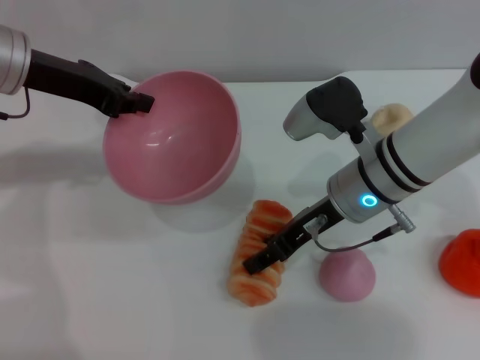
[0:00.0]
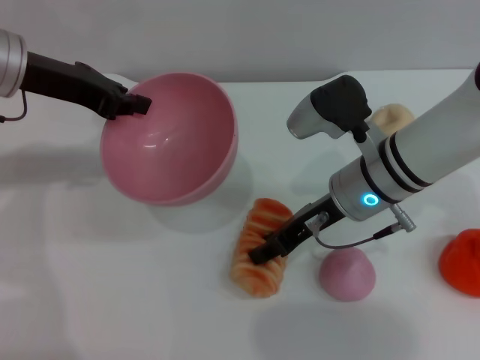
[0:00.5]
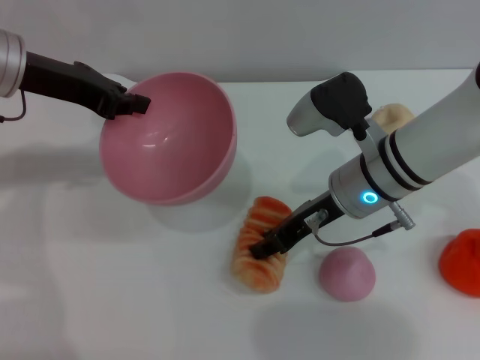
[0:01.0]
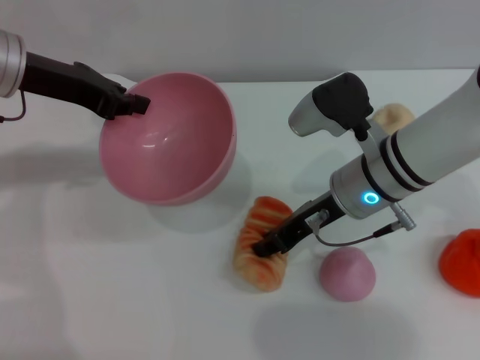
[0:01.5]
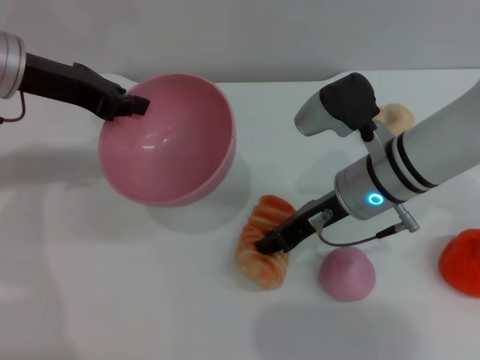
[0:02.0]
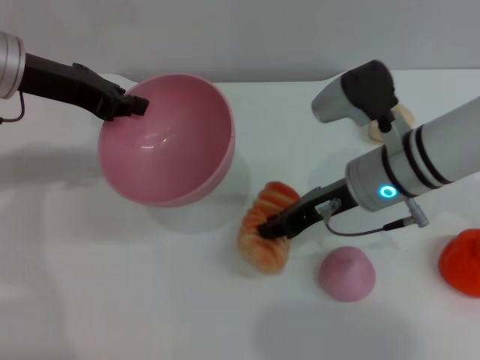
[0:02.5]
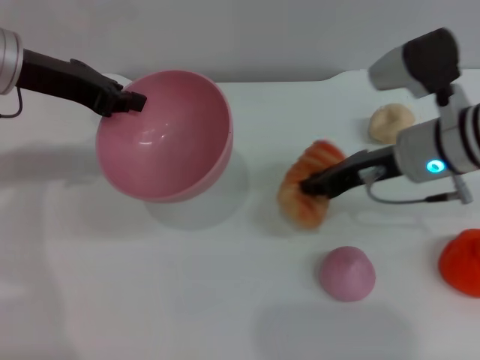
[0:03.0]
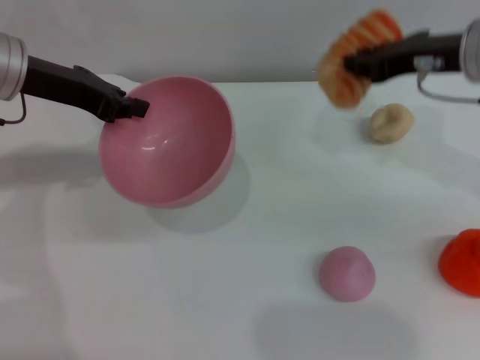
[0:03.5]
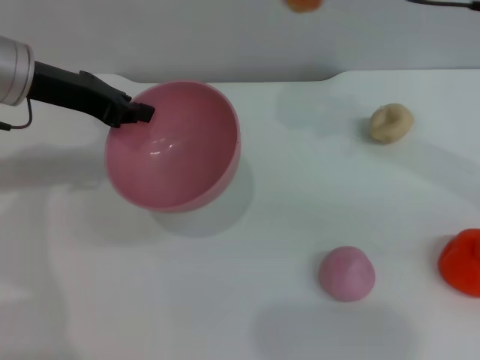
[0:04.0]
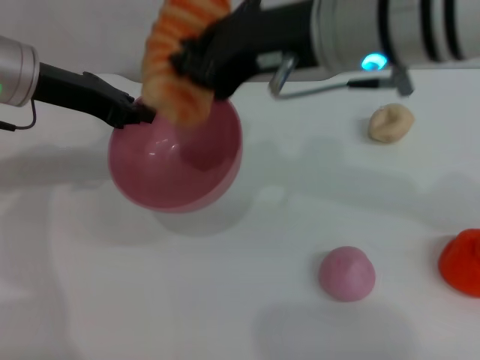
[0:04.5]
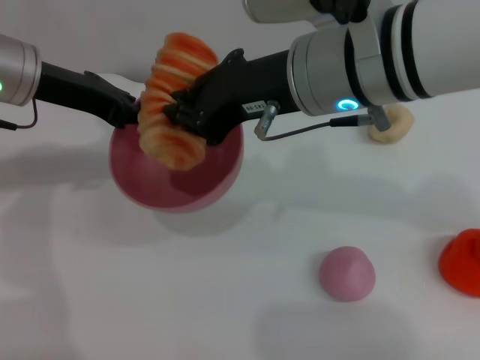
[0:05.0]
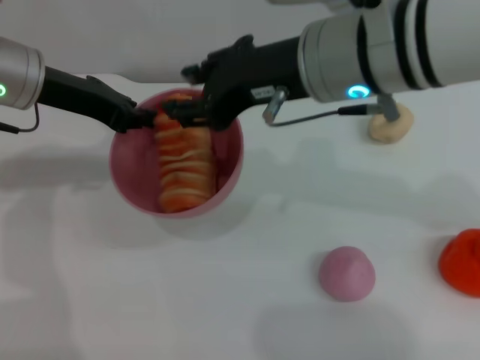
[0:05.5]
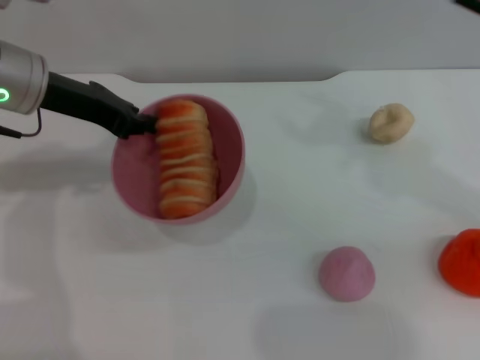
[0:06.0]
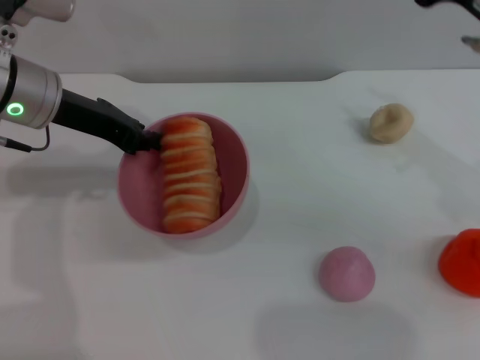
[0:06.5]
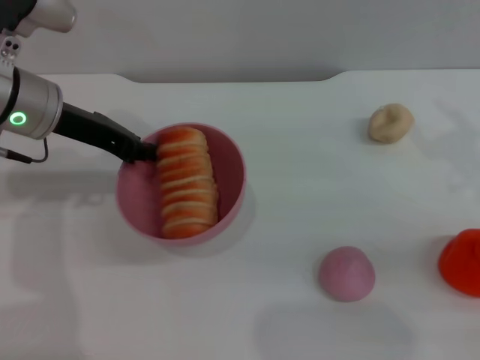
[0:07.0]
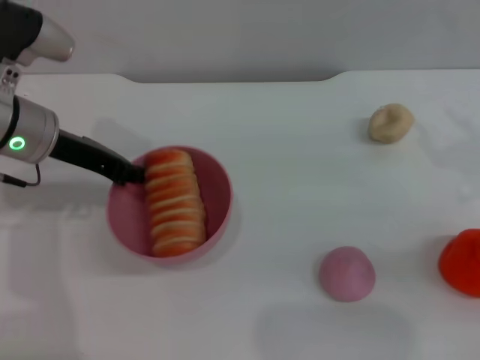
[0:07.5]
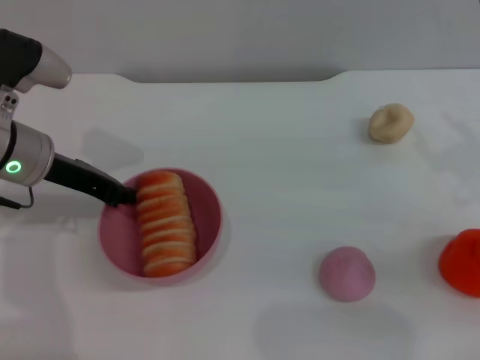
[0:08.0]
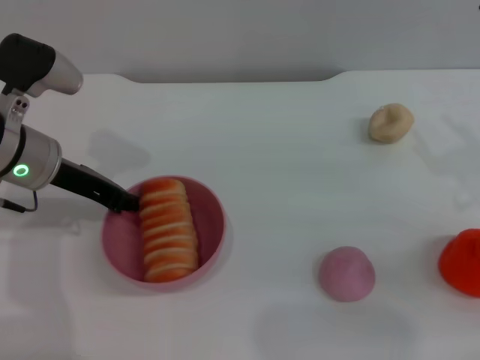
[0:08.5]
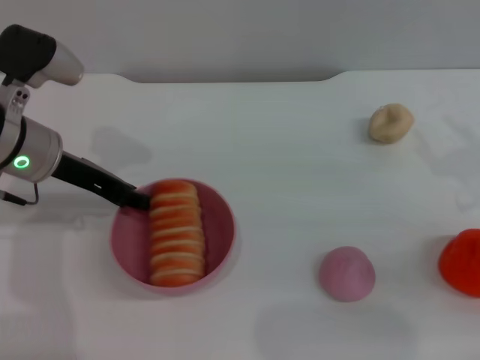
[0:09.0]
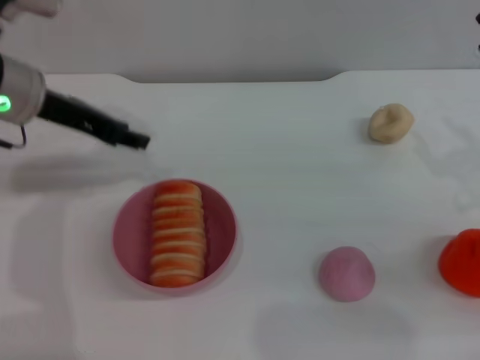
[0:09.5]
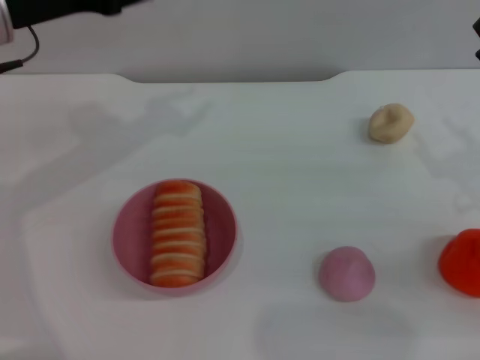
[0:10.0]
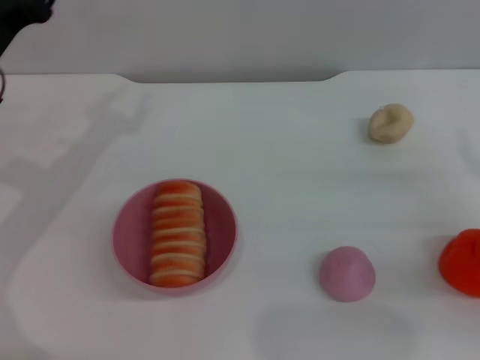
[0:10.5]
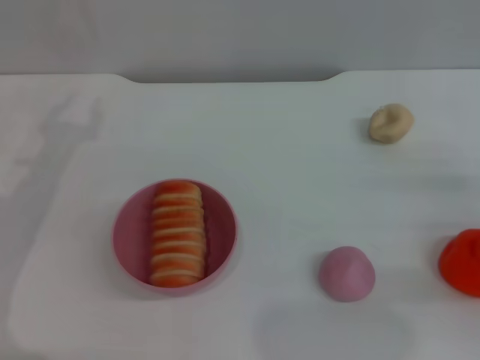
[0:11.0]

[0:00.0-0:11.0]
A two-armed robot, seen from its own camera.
Task of the whole recording: put the bread into the pink bowl and pour it out repeatedly.
Step, 0:00.0 to 0:02.5: Pick up the bread with the right gripper.
Step, 0:03.5 to 0:05.5: Place the bread into the bowl.
Step, 0:06.0 to 0:09.5: Place the bowl on the table.
0:00.0 to 0:02.0: The right gripper closes.
0:02.0 to 0:03.5: The right gripper travels upward and to the right by approximately 15 cm.
0:03.5 to 0:05.5: The right gripper moves to the left, about 15 cm, and opens its fingers.
0:05.5 to 0:07.5: The left gripper moves roughly 5 cm, while the right gripper heads to the right and downward, covering some 25 cm, and opens up.
0:07.5 to 0:09.0: There are only small adjustments of the grippers.
0:09.0 to 0:11.0: The left gripper heads to the left, covering approximately 5 cm, and travels upward and back again, roughly 10 cm each way.
